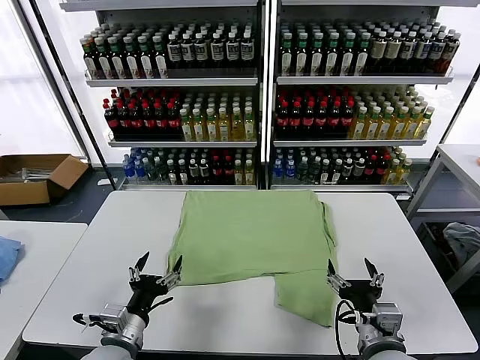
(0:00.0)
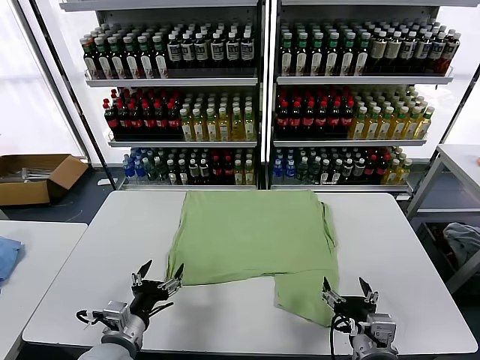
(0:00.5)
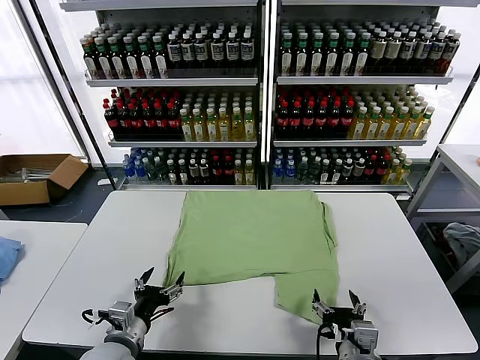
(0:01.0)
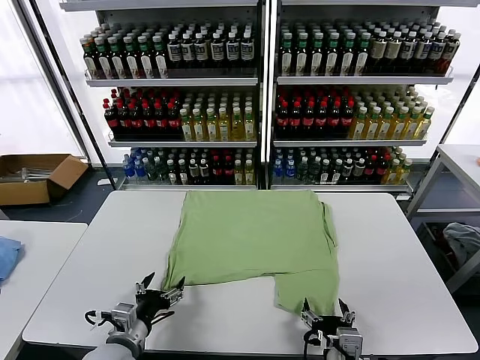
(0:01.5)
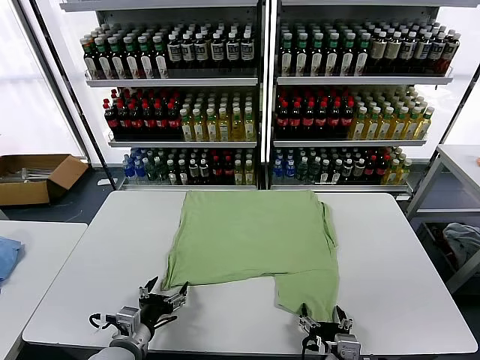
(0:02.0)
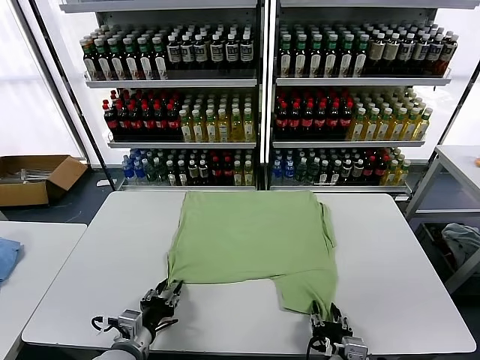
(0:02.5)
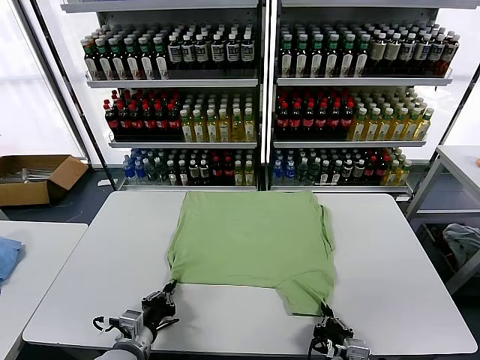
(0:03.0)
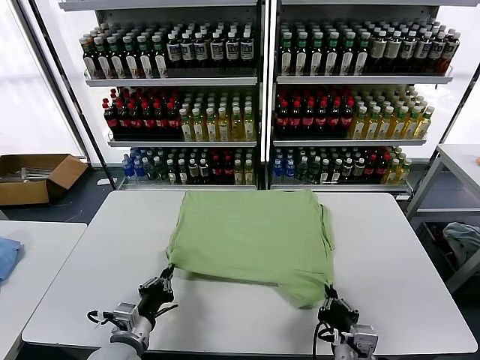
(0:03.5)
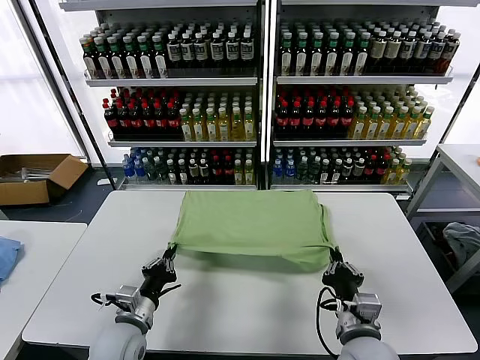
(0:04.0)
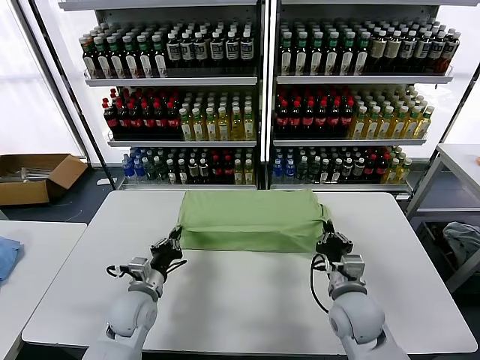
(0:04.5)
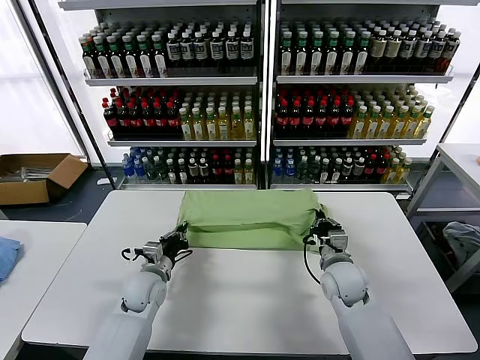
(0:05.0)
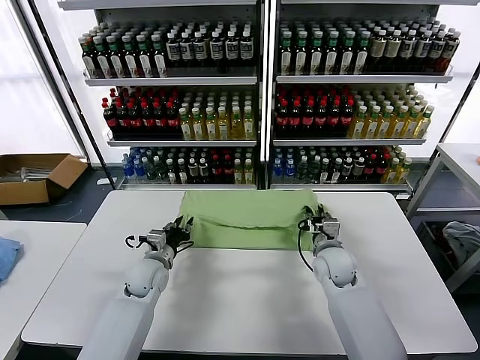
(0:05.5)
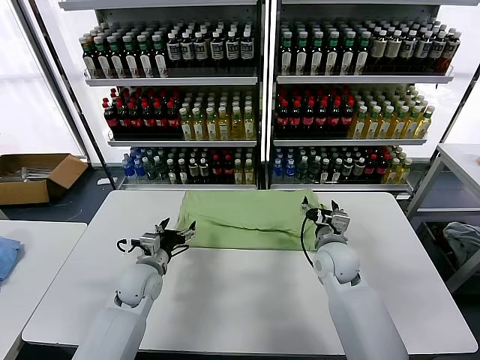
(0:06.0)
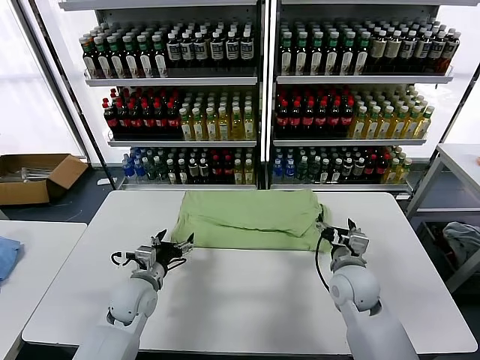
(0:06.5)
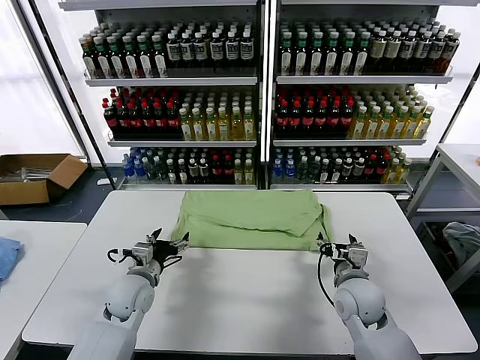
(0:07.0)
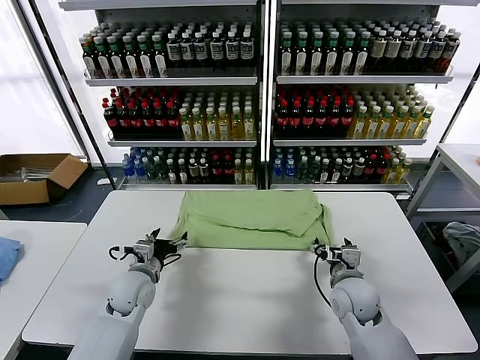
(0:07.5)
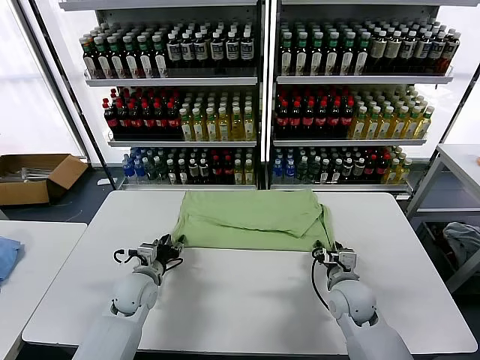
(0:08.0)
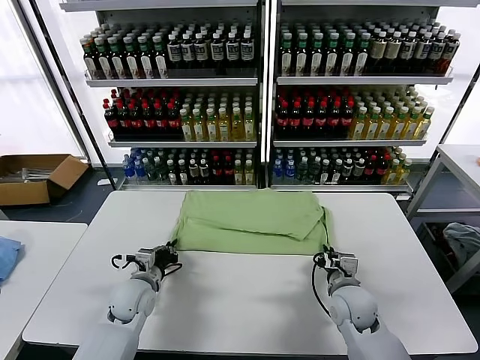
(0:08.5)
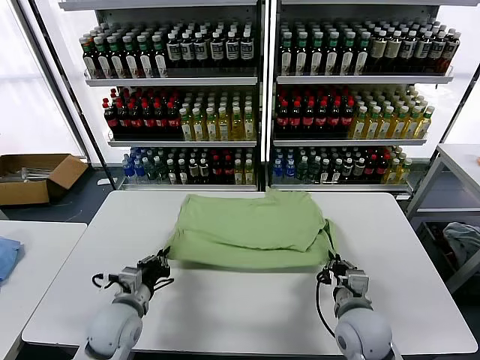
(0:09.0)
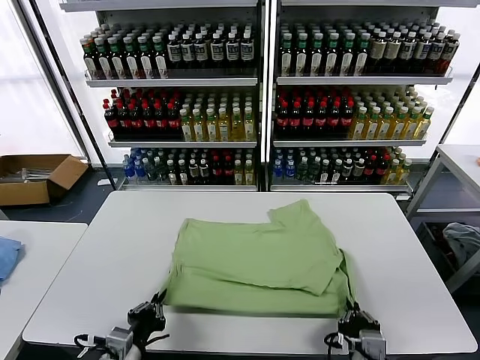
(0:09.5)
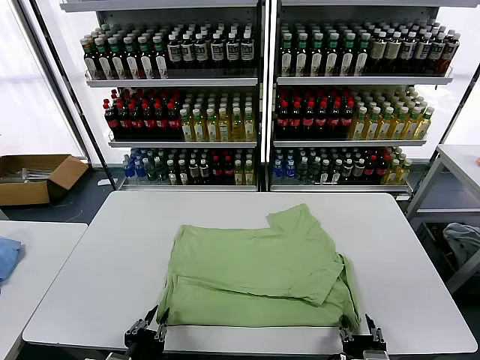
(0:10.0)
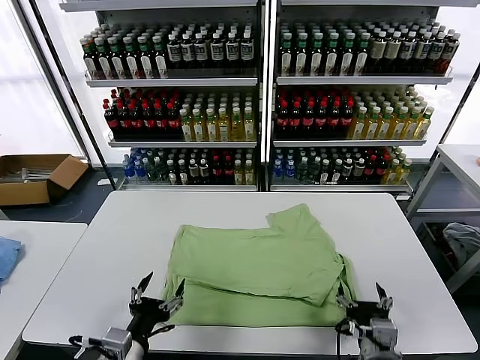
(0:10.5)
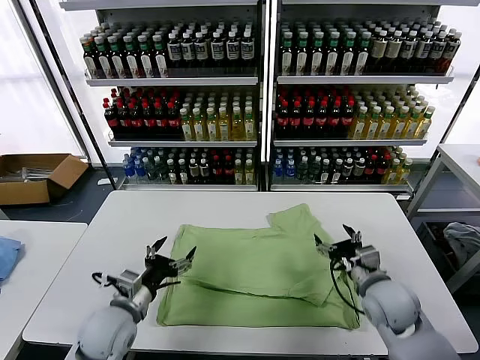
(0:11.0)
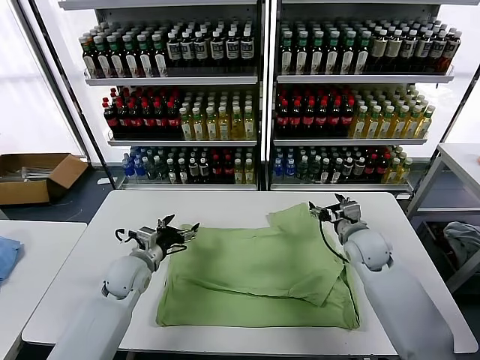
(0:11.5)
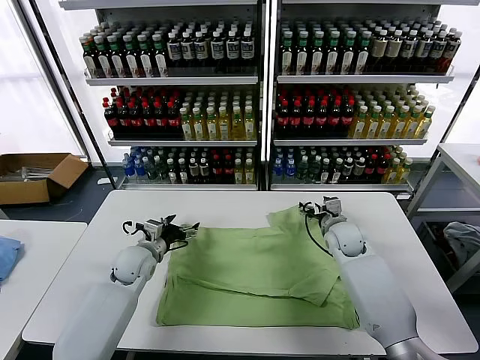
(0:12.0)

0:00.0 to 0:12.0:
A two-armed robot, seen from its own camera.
Task of the whole recording: fold and organize the clothes.
Step, 0:00.0 to 0:02.5: use both grippers simultaneously to clamp the lower edge of the clothing fabric.
Step, 0:03.5 to 0:05.5: use both grippers to drag the lower edge of the fabric forward and fold it over the upper edge.
Step, 0:06.0 to 0:10.0: Drag the clothes downward with both gripper.
0:02.0 to 0:04.0: The left gripper changes place by about 5 cm, and closes its fingers, while the right gripper goes roughly 10 cm forward and upward, and closes its fingers.
0:04.0 to 0:06.0: Both grippers move forward, about 15 cm. The right gripper opens up. The left gripper opens.
0:06.0 to 0:08.0: The right gripper shifts some 10 cm downward and backward, and closes. The left gripper closes.
0:08.0 to 0:10.0: The grippers both shift backward by some 25 cm. The left gripper closes and opens again; the right gripper closes, then reopens.
0:10.0 to 0:12.0: The grippers both shift forward by about 35 cm. The left gripper opens up.

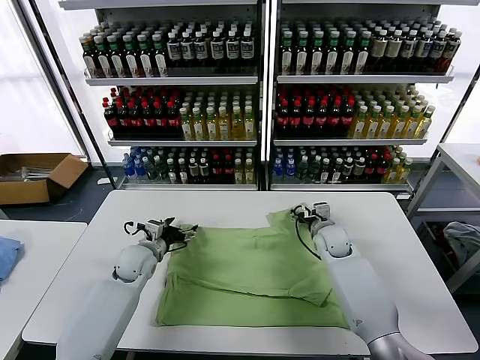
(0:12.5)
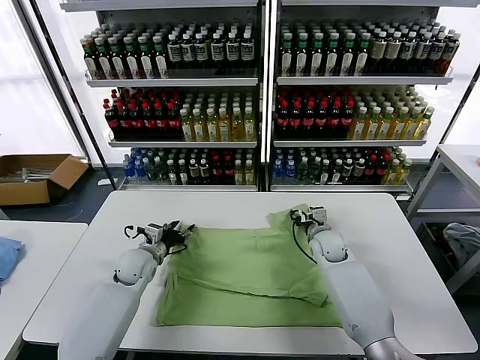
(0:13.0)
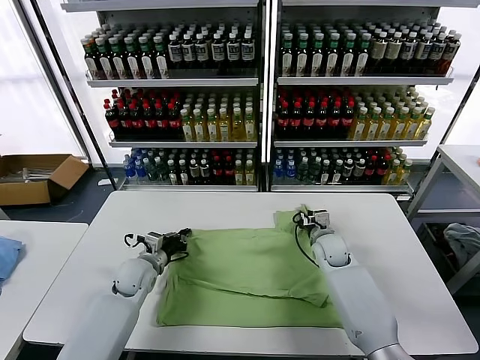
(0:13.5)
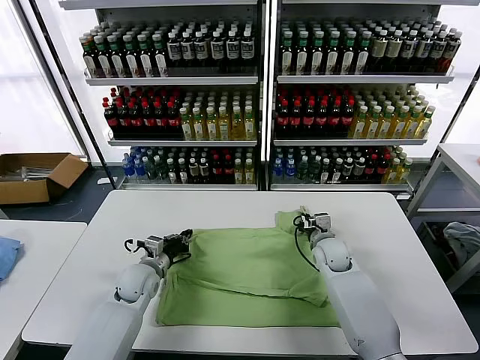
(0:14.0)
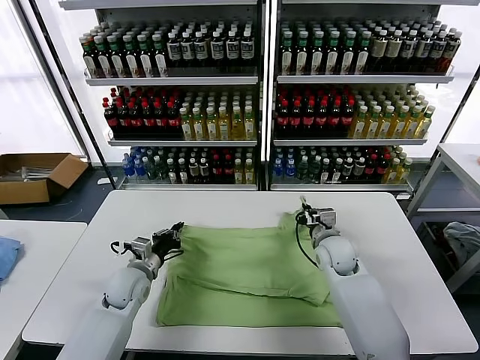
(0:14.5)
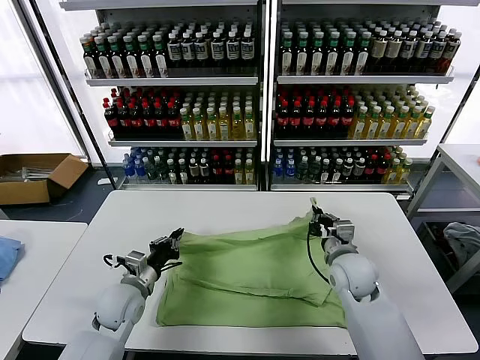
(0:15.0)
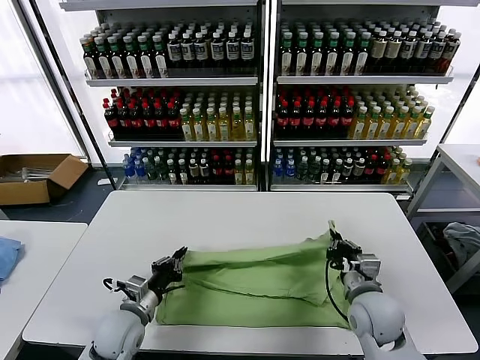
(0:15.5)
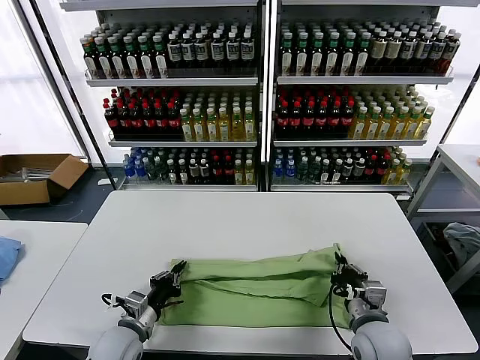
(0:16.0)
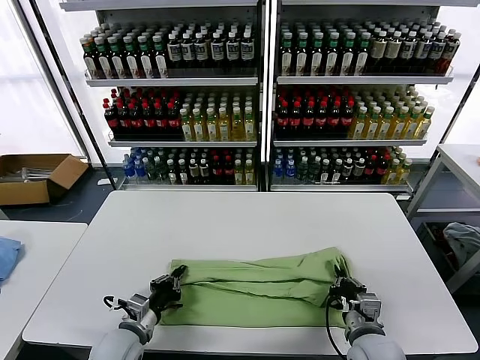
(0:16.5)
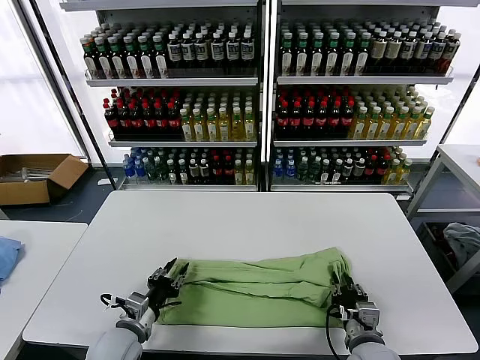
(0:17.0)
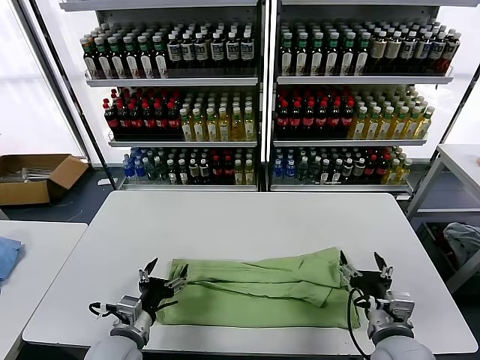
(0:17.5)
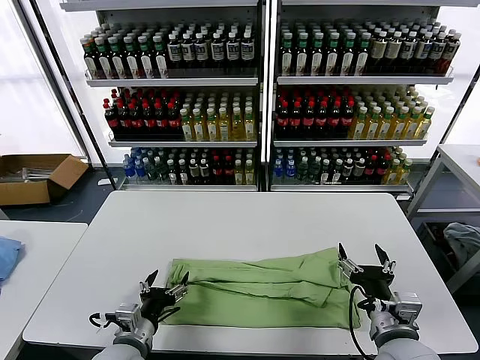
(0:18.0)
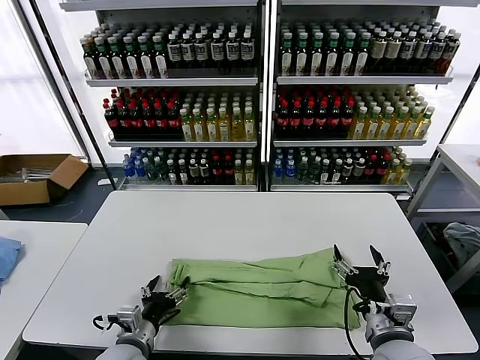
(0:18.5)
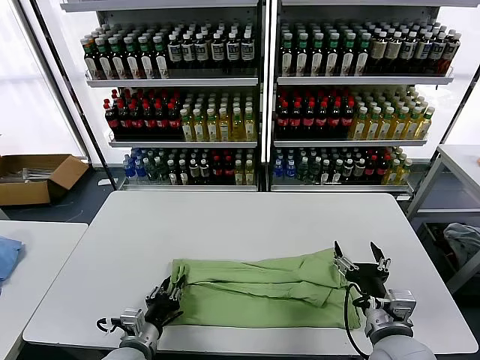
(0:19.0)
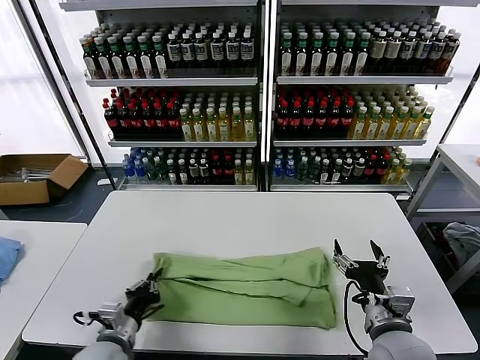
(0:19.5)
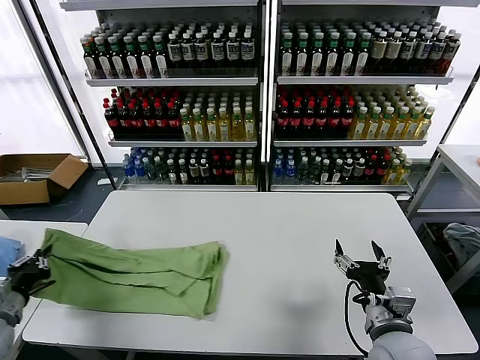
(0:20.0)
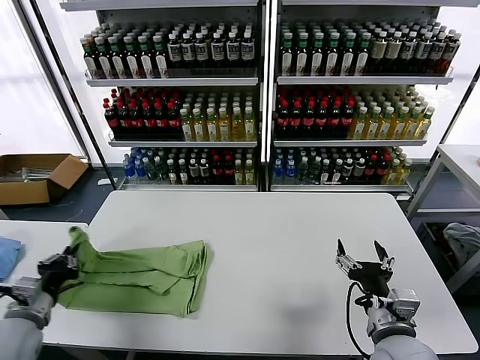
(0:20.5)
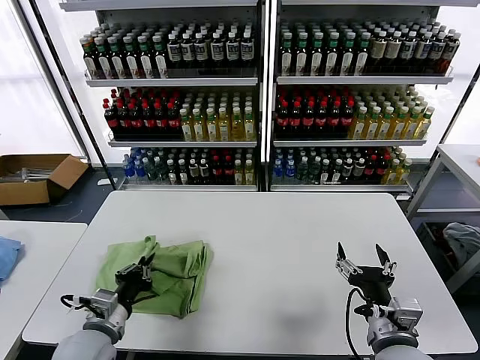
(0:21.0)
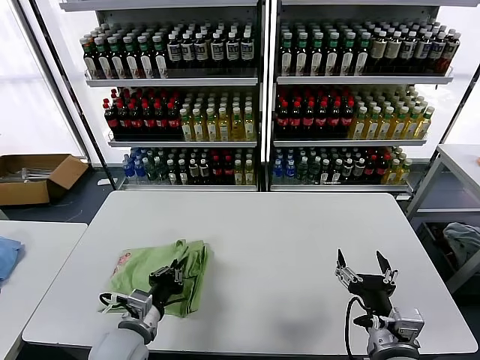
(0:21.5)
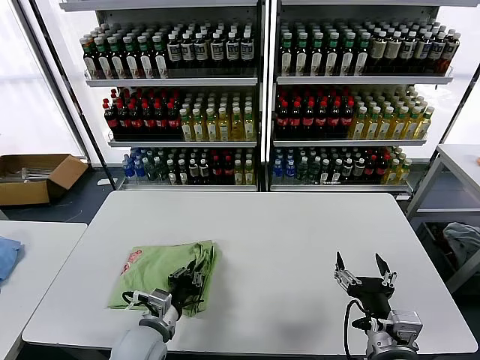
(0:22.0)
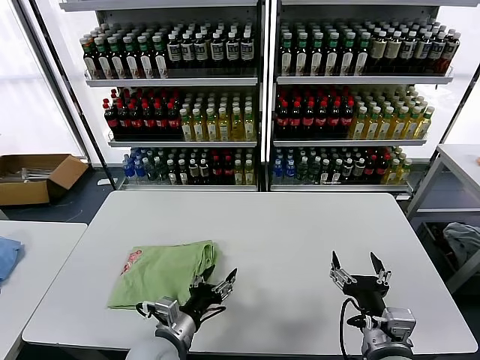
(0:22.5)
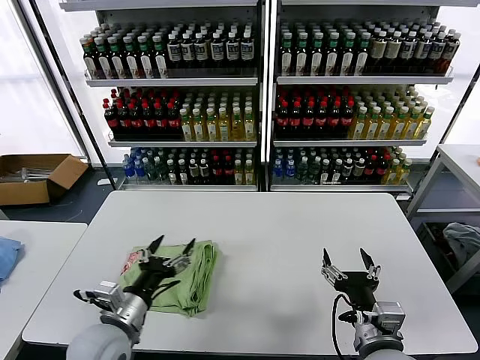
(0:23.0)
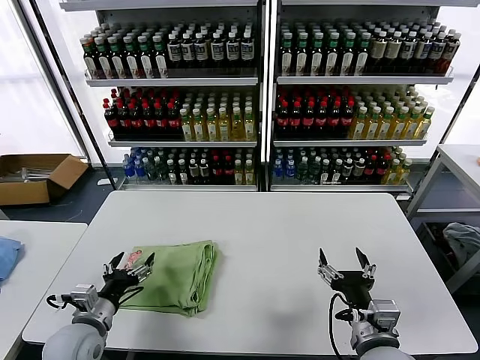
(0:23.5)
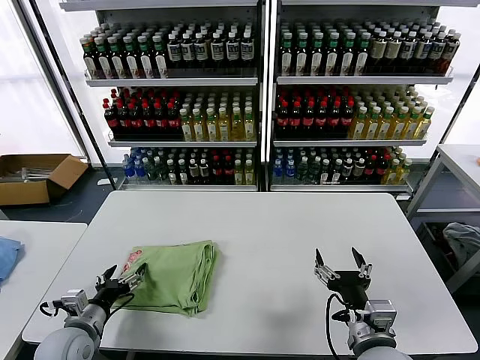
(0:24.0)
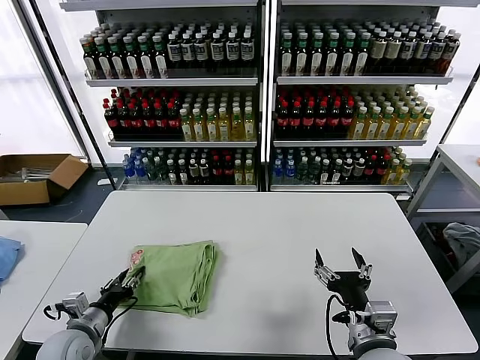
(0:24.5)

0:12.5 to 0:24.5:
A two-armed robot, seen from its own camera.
Task of the whole recording: fold and organize the clothes.
Step, 0:14.0 to 0:17.0: use both grippers to drag the upper edge of the fabric backward and fold it over the lower edge.
Step, 0:17.5 to 0:19.0: use the left gripper to clamp the left edge of the fabric.
Step, 0:19.5 to 0:22.5: use the left gripper to drag the left edge of the fabric to the left and folds it over the right edge.
0:12.5 to 0:14.5: Both grippers travel together backward, some 5 cm. The left gripper closes its fingers, while the right gripper closes up.
0:14.5 to 0:16.5: The right gripper is displaced backward by some 20 cm, while the left gripper is displaced backward by approximately 15 cm.
0:16.5 to 0:18.5: The right gripper moves upward, about 5 cm, and opens. The left gripper opens its fingers.
0:18.5 to 0:20.5: The left gripper heads to the left and upward, covering some 20 cm, and closes.
0:20.5 to 0:22.5: The left gripper is displaced to the right by some 25 cm, and opens its fingers.
0:22.5 to 0:24.5: The left gripper goes some 20 cm to the left.

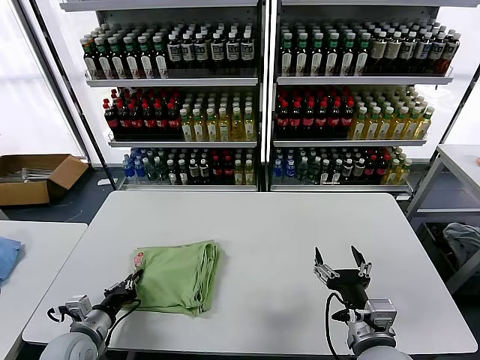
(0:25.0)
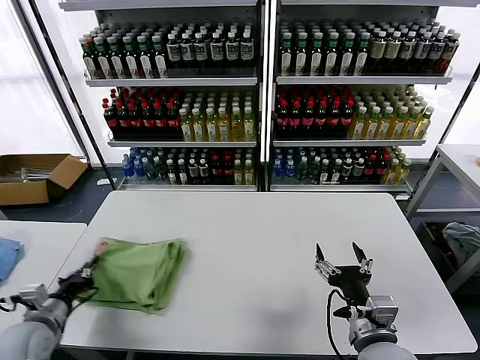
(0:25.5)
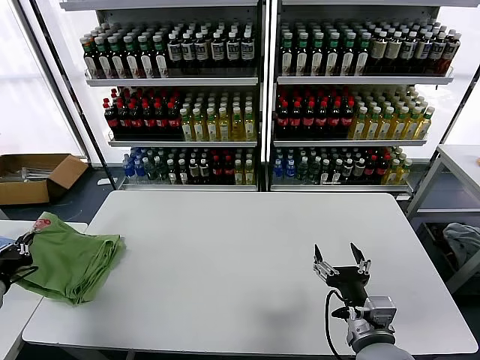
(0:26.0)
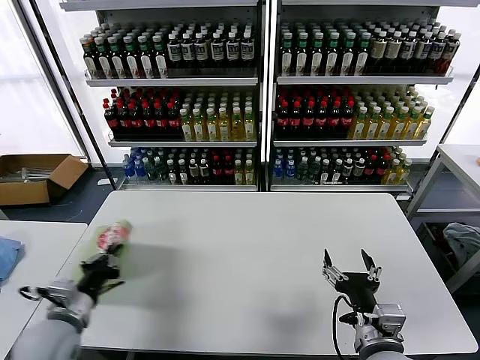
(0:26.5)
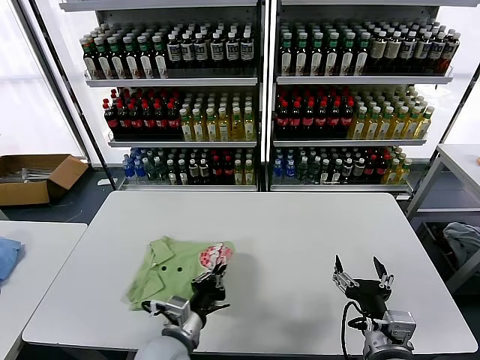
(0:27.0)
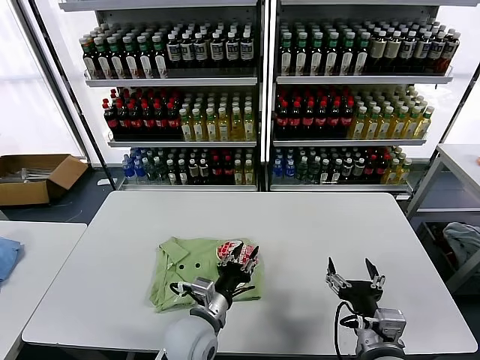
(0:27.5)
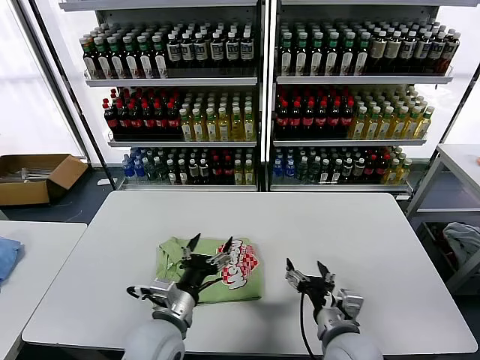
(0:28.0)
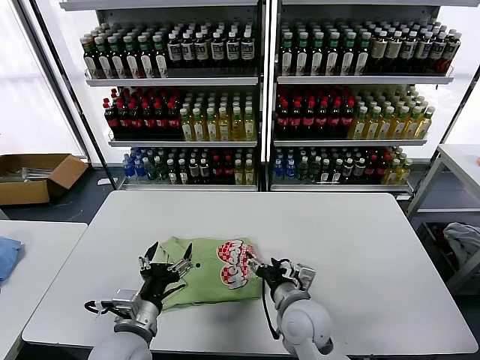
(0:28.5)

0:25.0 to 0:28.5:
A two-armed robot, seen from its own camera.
Task of the whole recording: fold and organize the clothes.
Step, 0:25.0 to 0:27.5: Flip the folded clothes over with left gripper.
0:25.0 to 0:27.0: The left gripper is displaced to the right by approximately 20 cm.
0:27.0 to 0:28.5: The right gripper is displaced forward, to the left and downward by about 20 cm. The left gripper travels to the left by about 5 cm, and opens.
